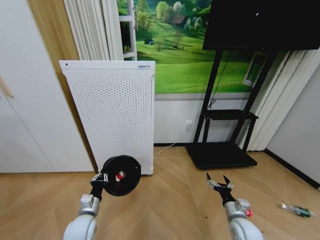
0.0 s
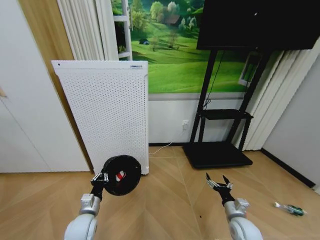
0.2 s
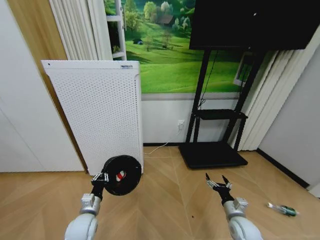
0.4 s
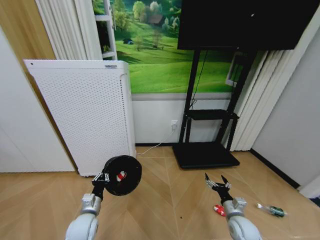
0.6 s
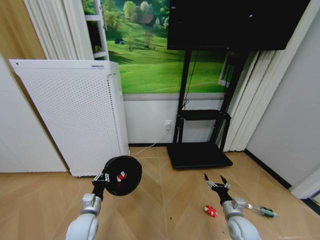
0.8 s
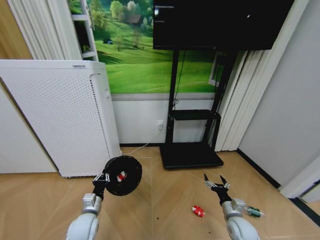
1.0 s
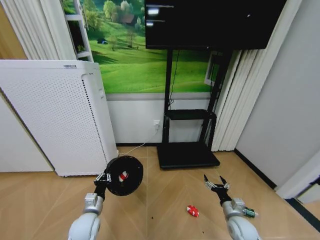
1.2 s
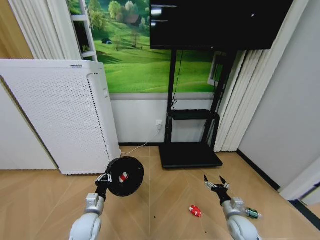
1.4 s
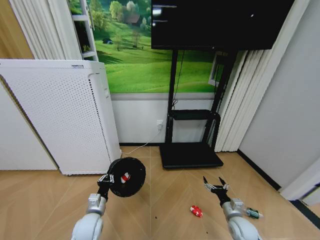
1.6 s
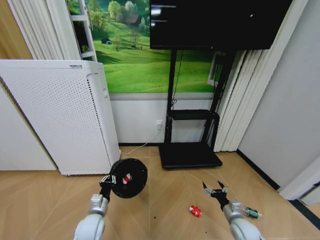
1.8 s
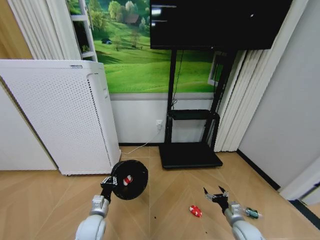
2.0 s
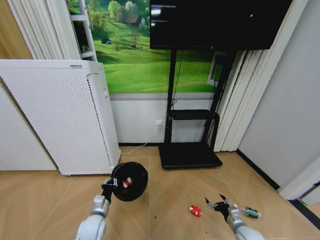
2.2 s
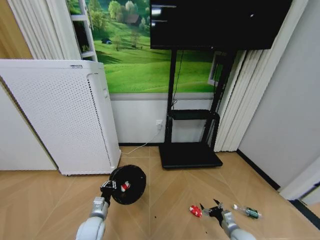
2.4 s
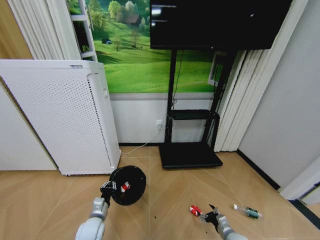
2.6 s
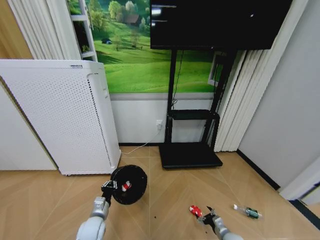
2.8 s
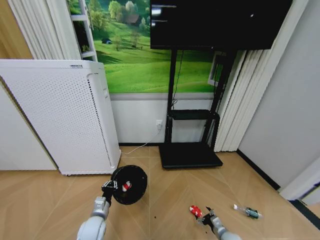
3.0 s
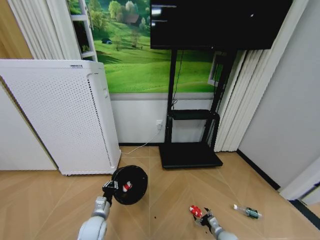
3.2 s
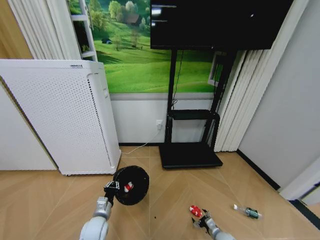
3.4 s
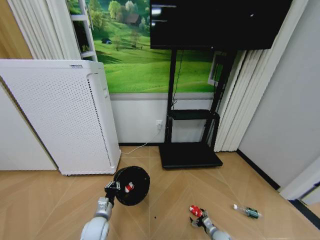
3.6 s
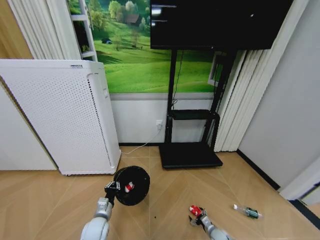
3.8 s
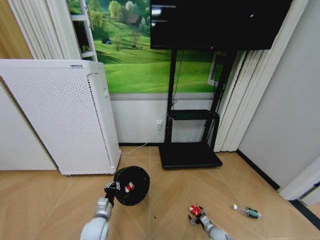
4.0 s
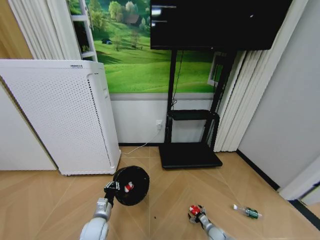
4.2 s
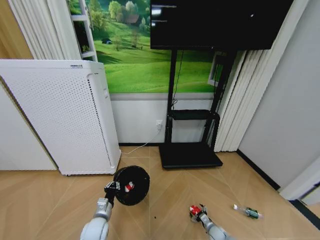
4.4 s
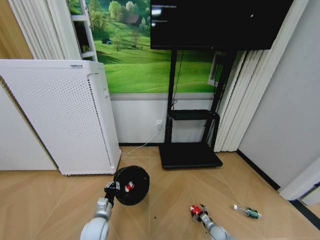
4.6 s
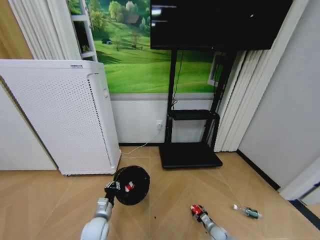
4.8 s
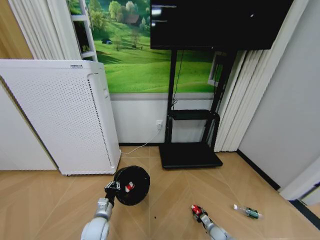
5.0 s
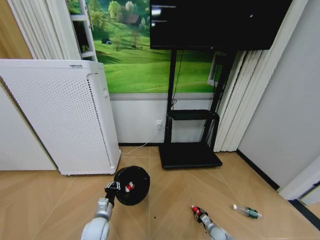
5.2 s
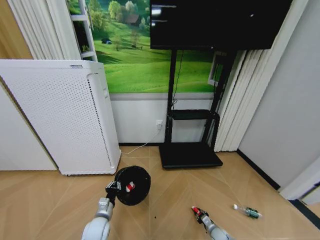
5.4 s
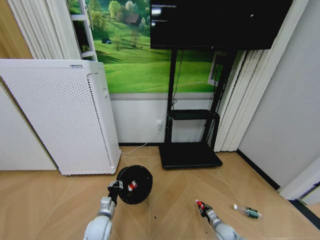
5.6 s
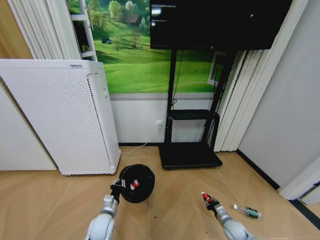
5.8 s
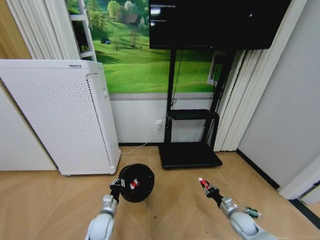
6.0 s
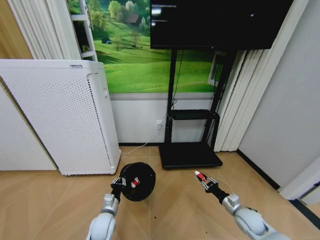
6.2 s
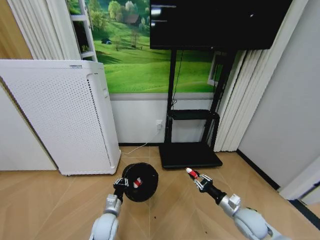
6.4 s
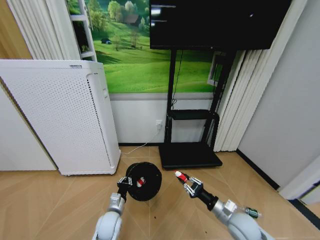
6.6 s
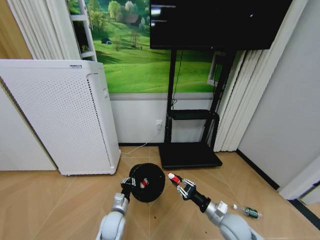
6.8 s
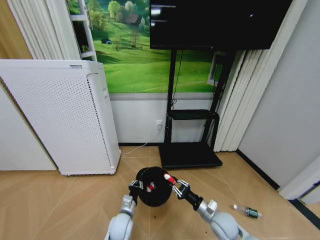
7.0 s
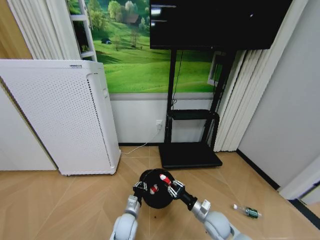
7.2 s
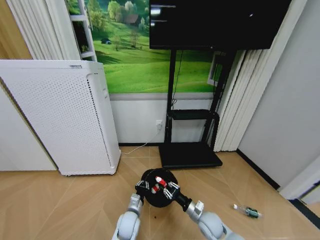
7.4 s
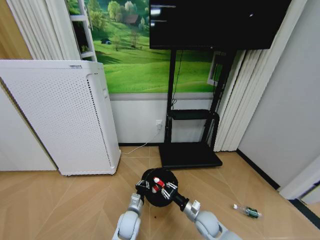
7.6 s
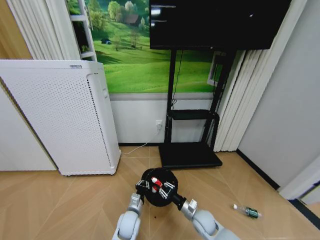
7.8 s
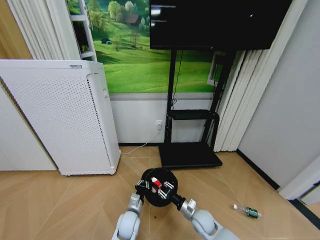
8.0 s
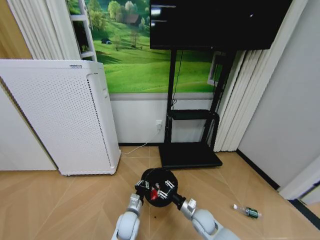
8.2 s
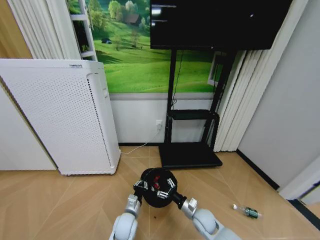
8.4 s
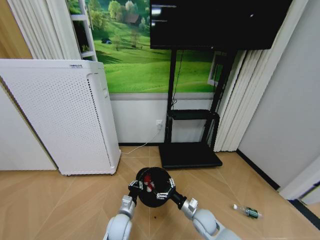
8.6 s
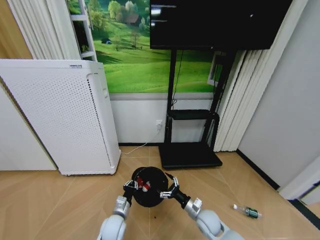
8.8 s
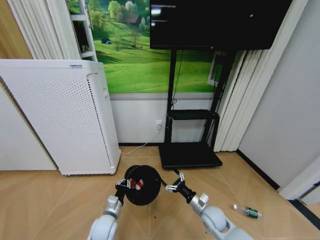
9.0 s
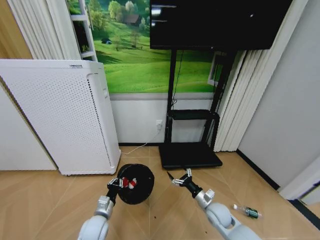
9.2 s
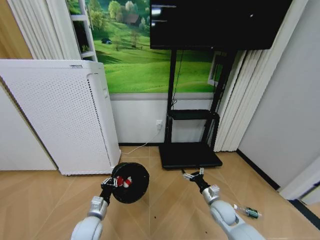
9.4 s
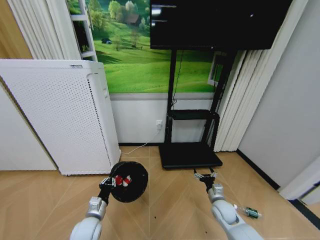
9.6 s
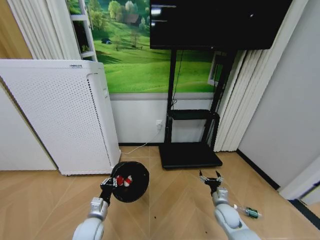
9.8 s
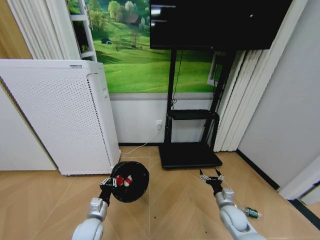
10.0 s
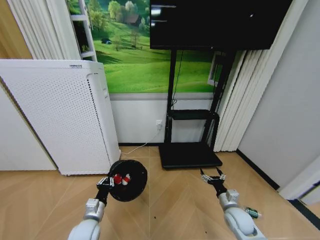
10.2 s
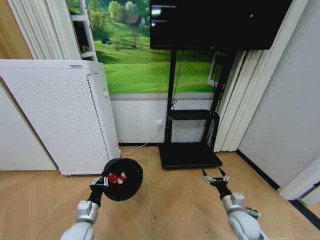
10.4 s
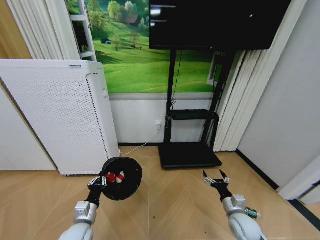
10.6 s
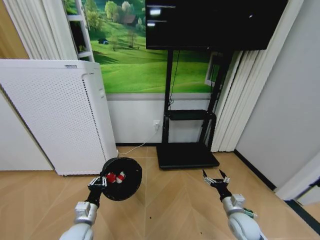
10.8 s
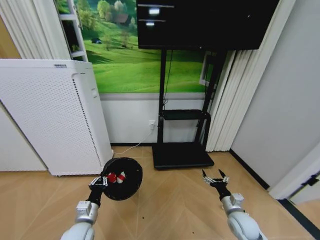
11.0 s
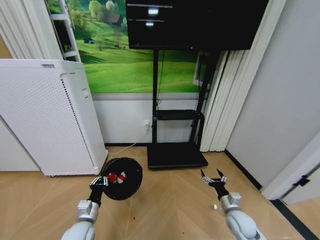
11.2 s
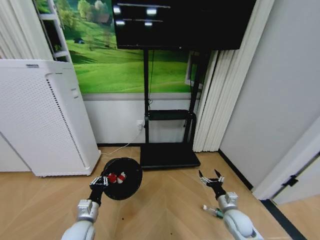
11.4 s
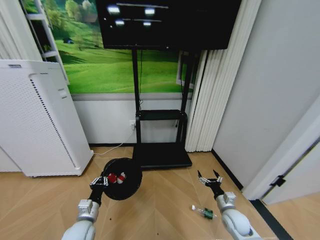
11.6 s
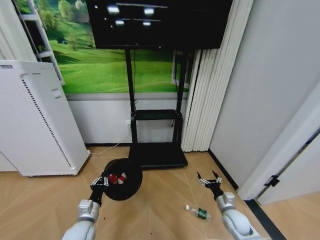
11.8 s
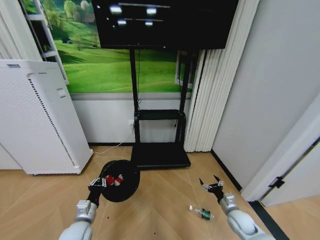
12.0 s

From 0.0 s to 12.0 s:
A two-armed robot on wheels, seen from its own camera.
Task of the whole recording: Pick up the trash bin and place the garbage on the floor into it.
From 1.6 s to 3.0 s: The right gripper is displaced downward by some 15 cm.
From 3.0 s to 4.4 s: The right gripper shifts about 5 cm downward.
From 4.4 s to 6.0 s: The right gripper travels upward by roughly 15 cm, and closes.
From 6.0 s to 7.6 s: The left gripper moves to the right, approximately 10 cm. The right gripper goes about 20 cm to the left.
From 7.6 s to 9.0 s: The right gripper opens, while the left gripper shifts about 10 cm to the left.
From 9.0 s to 10.4 s: The right gripper moves to the right, approximately 10 cm, while the left gripper goes roughly 10 cm to the left and upward.
From 10.4 s to 12.0 s: The right gripper moves downward, approximately 5 cm.

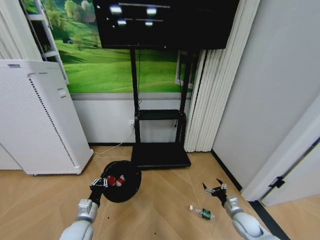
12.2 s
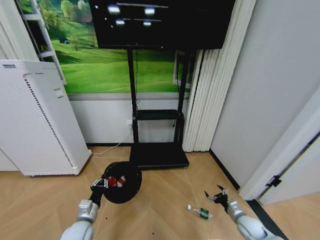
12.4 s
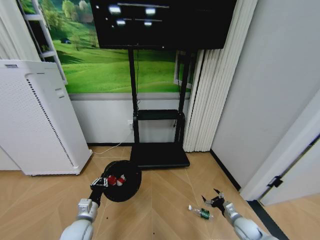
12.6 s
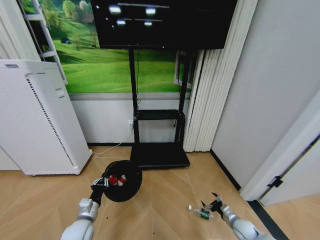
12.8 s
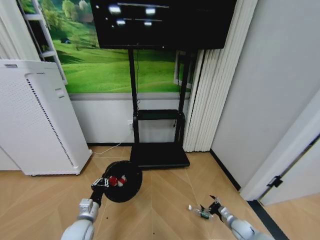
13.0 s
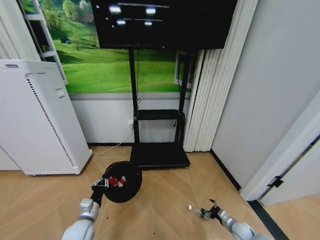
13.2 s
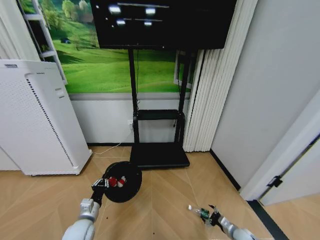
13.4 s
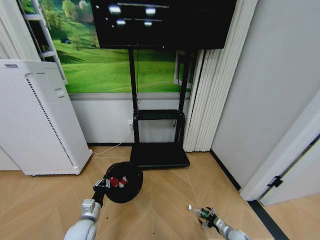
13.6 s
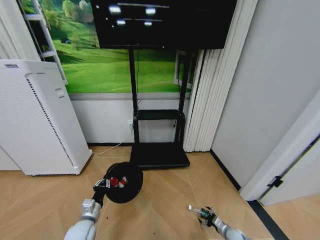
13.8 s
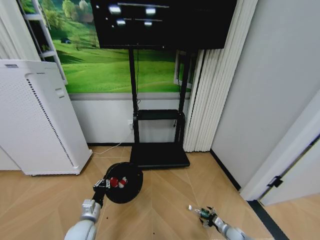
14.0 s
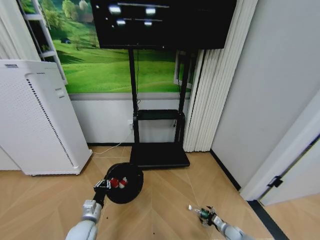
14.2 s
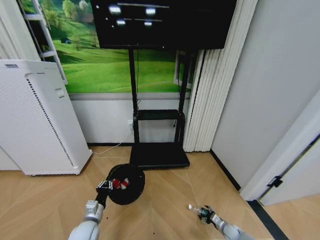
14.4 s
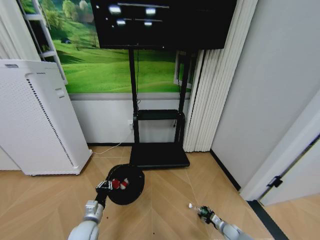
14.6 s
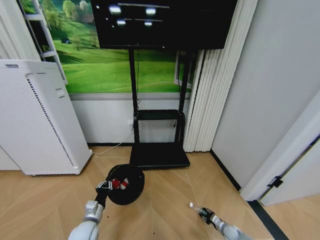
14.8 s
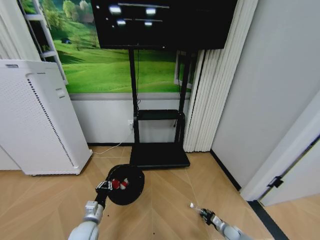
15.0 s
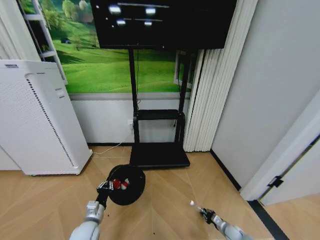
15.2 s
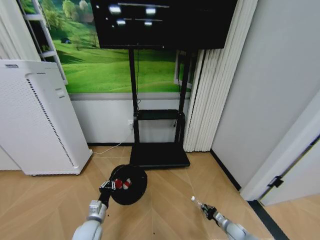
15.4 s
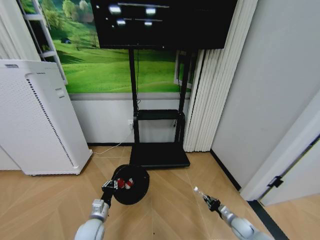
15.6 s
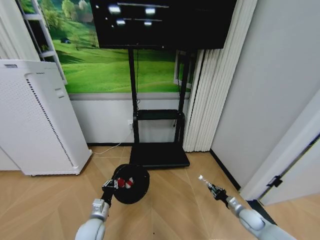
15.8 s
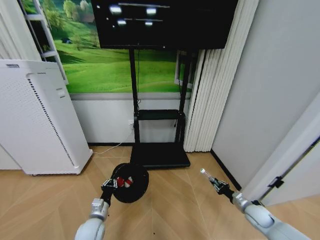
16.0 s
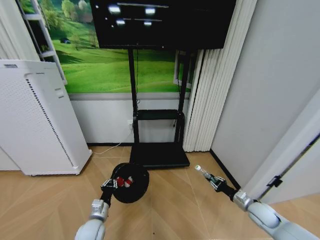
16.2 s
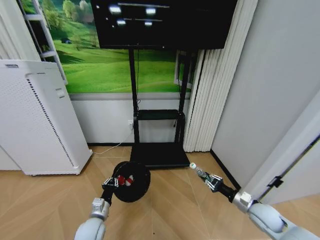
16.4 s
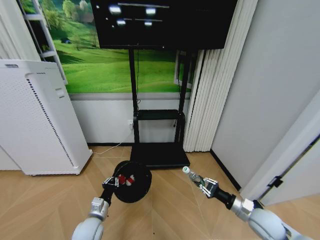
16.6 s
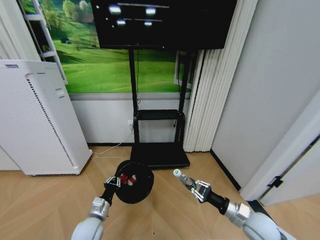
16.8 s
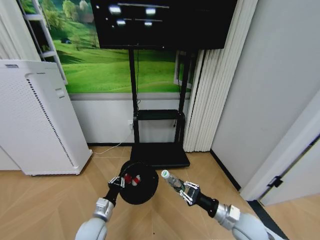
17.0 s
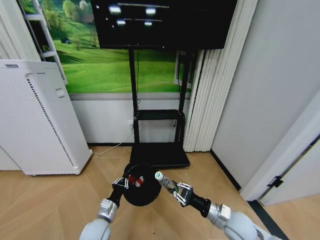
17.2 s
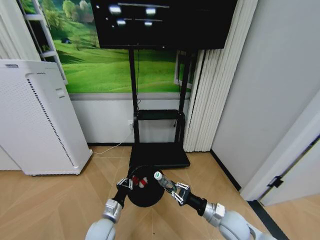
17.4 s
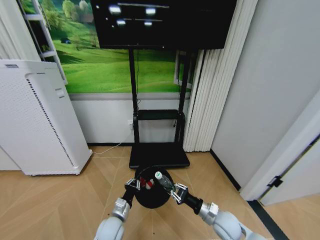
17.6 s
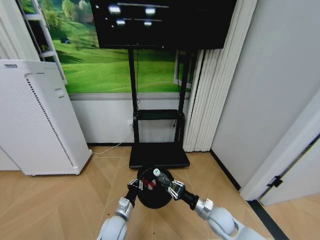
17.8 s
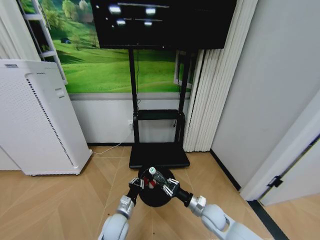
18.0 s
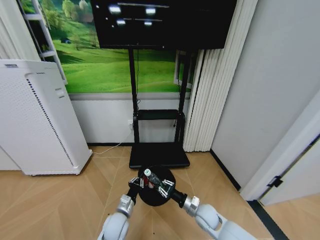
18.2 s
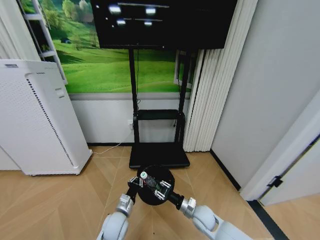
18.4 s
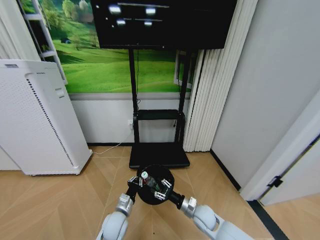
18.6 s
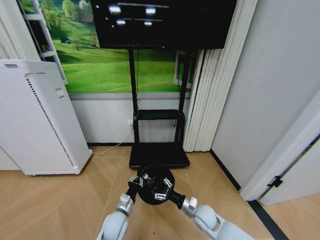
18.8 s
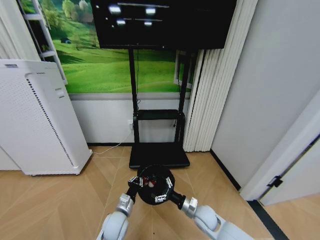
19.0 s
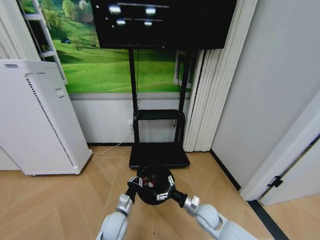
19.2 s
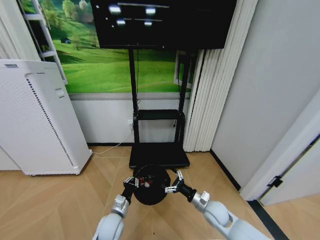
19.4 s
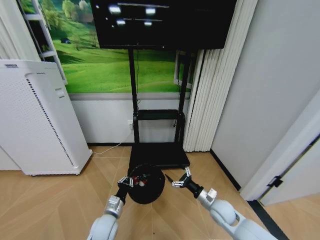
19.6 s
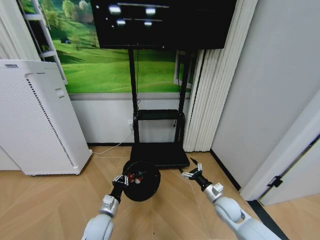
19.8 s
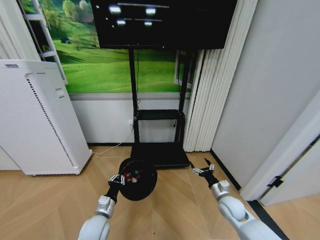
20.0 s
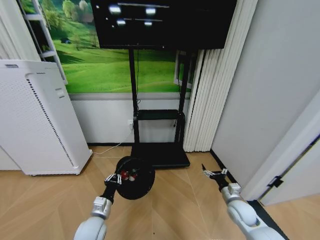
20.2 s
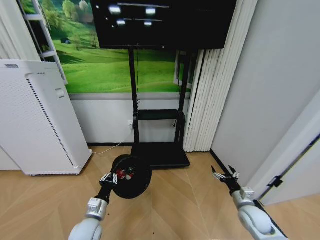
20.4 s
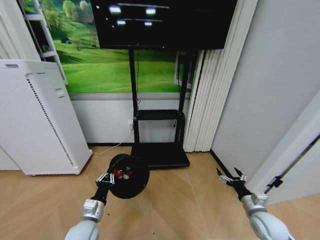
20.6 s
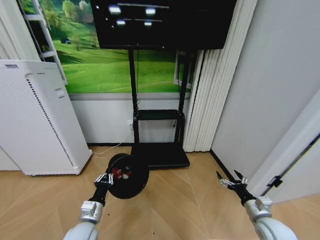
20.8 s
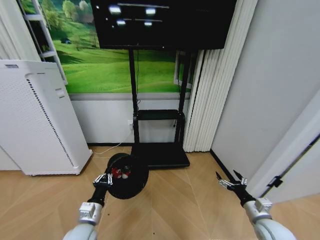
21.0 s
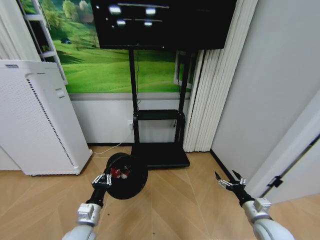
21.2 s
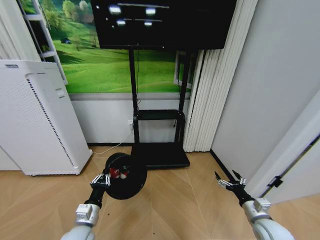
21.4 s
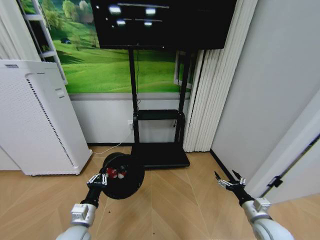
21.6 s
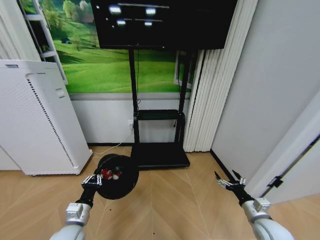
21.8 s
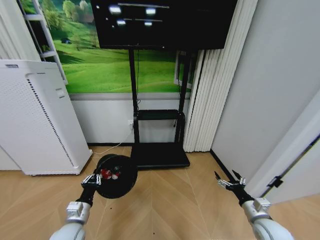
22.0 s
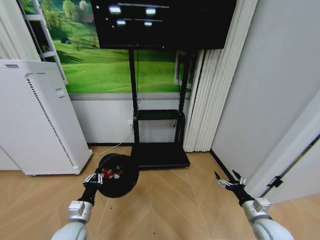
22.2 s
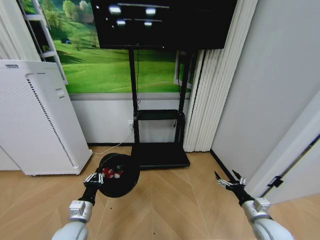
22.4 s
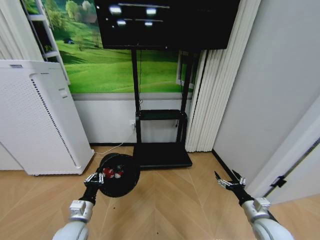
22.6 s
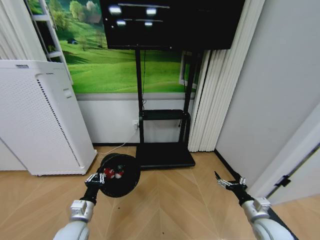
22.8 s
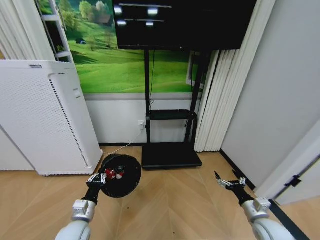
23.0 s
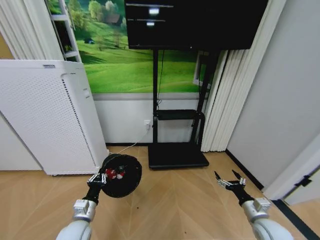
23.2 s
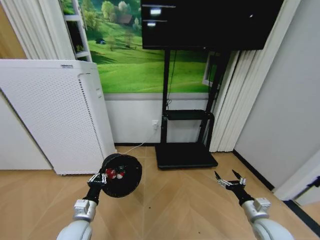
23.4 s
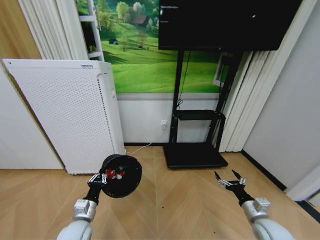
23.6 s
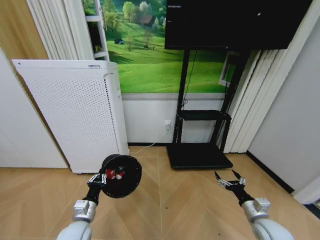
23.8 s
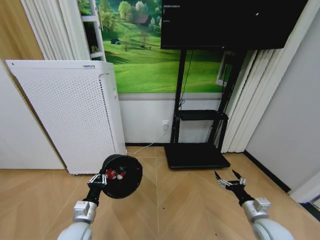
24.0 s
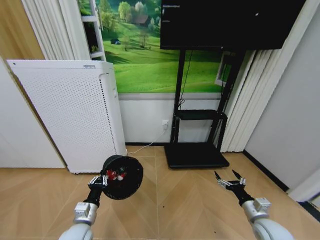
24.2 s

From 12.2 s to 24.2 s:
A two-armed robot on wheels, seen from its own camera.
Task of the whole recording: Pick up the trash bin and place the garbage on the floor into it.
From 12.2 s to 13.8 s: The right gripper heads downward, covering some 15 cm.
From 13.8 s to 15.2 s: The right gripper closes.
From 15.2 s to 16.6 s: The right gripper moves upward, roughly 25 cm.
From 16.6 s to 18.2 s: The right gripper travels to the left by roughly 20 cm, while the left gripper shifts about 10 cm to the right.
From 18.2 s to 19.8 s: The left gripper moves to the left, some 5 cm, while the right gripper goes about 10 cm to the right, and opens.
From 19.8 s to 21.2 s: The right gripper goes roughly 15 cm to the right and backward. Meanwhile the left gripper is displaced upward by about 5 cm.
From 21.2 s to 22.6 s: The grippers make only small movements.
